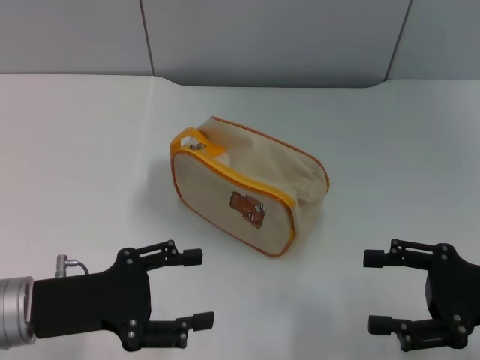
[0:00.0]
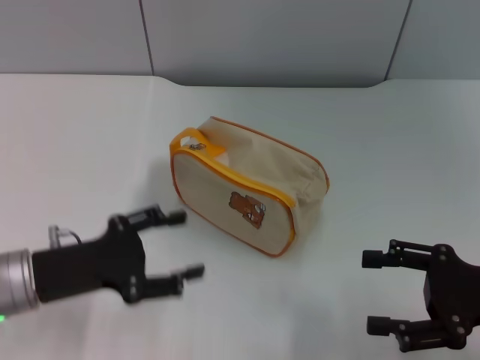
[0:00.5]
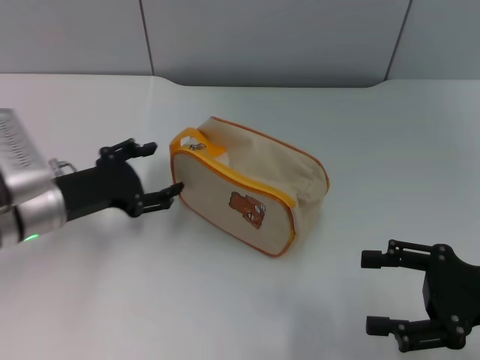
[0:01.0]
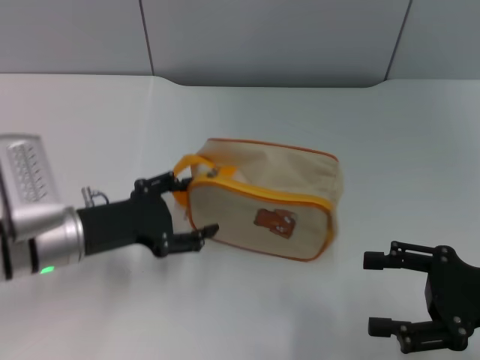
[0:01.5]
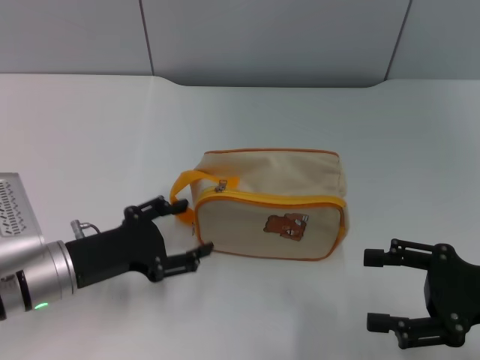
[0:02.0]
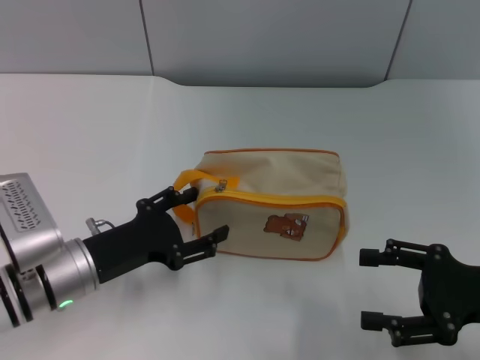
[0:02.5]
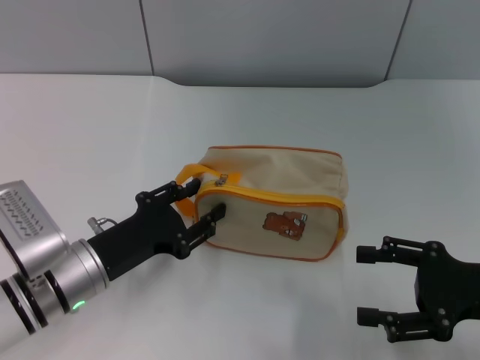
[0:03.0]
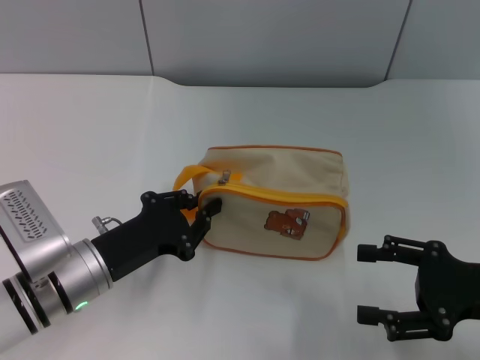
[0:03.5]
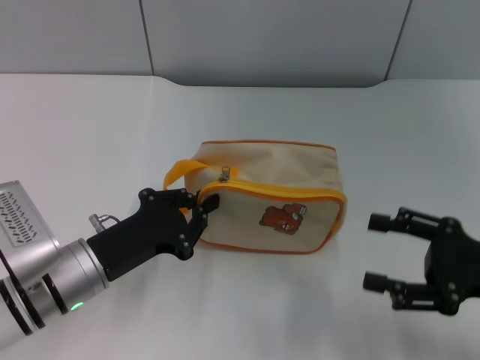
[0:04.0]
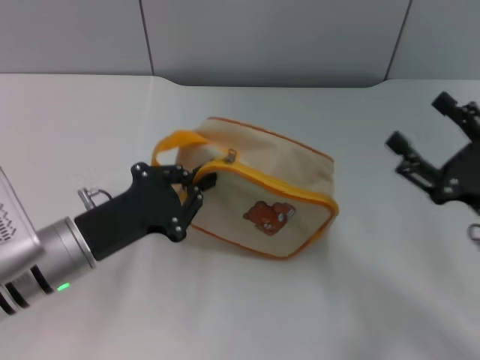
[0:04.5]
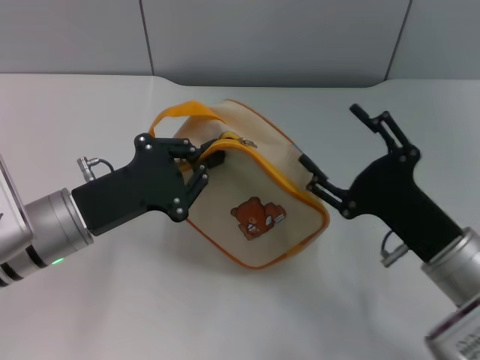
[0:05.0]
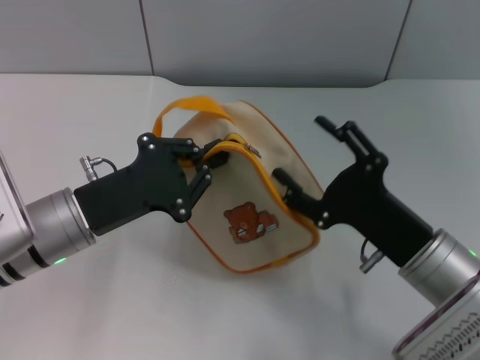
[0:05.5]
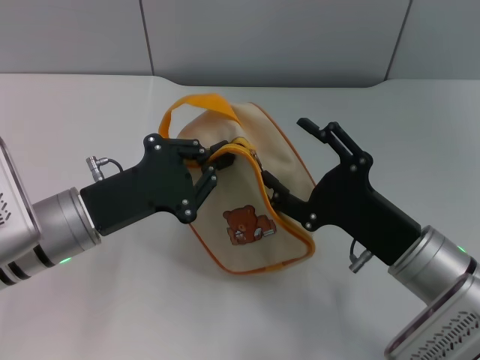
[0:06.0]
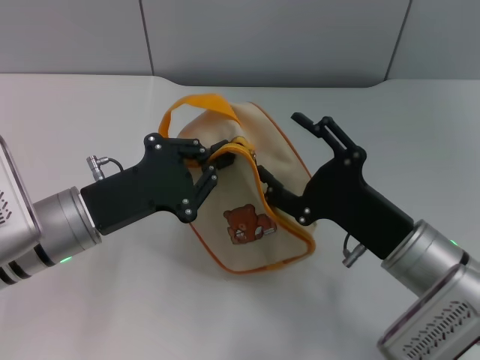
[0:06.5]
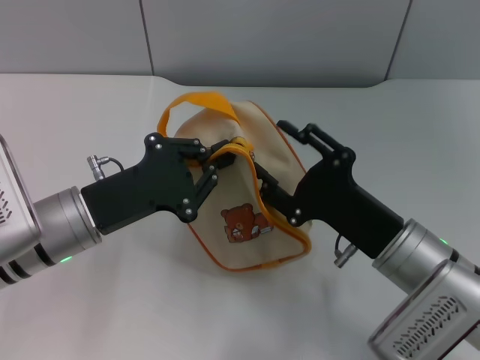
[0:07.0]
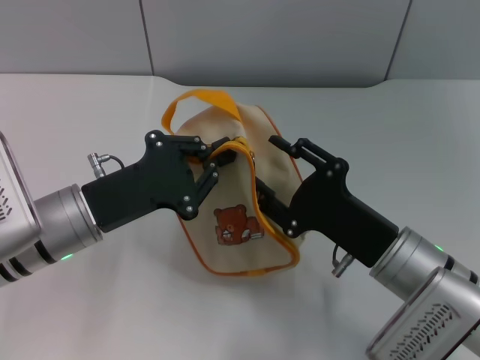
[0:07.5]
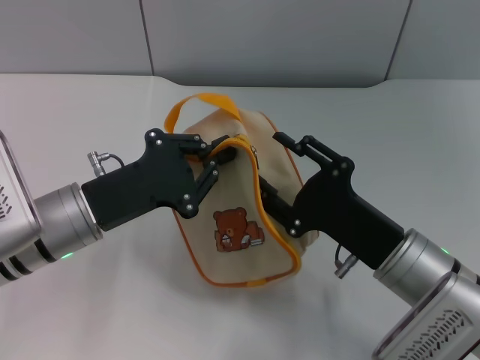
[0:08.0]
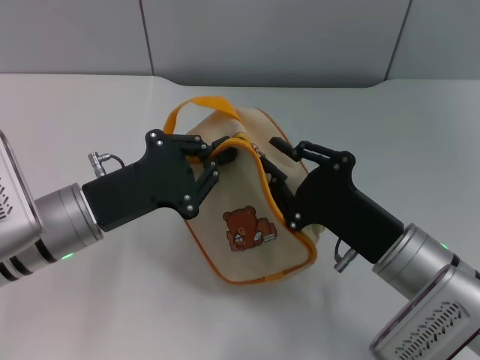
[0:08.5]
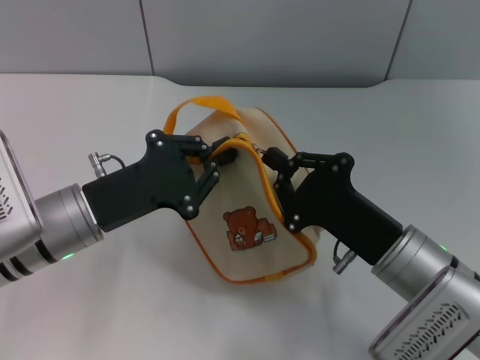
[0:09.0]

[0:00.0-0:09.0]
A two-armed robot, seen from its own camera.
Step, 0:00.0 to 0:04.5: Pick up the bag with left gripper.
0:02.0 to 0:04.5: The left gripper closes its fingers.
0:04.5 to 0:07.0: The right gripper travels to the left by about 10 cm.
0:07.0 to 0:09.0: The right gripper closes.

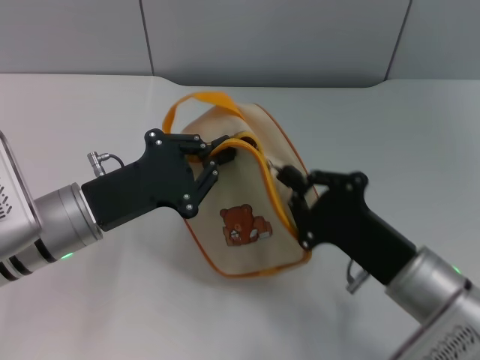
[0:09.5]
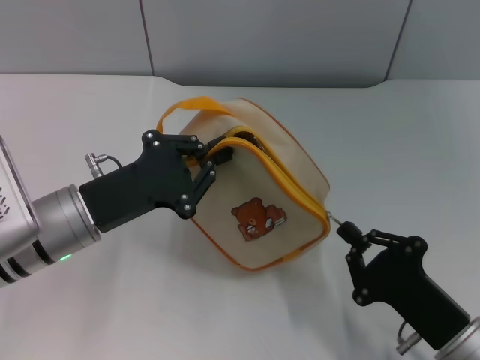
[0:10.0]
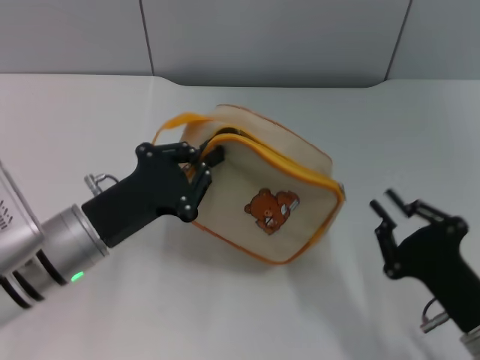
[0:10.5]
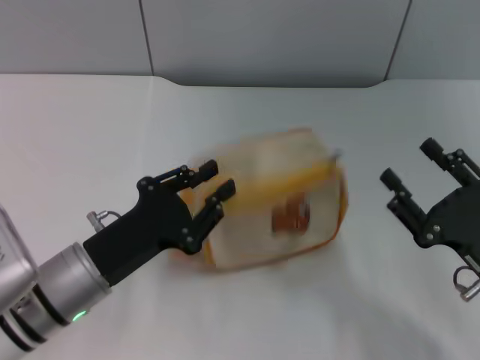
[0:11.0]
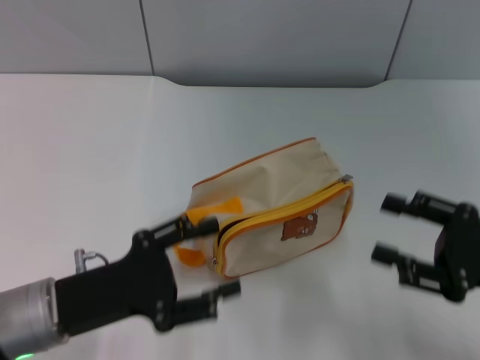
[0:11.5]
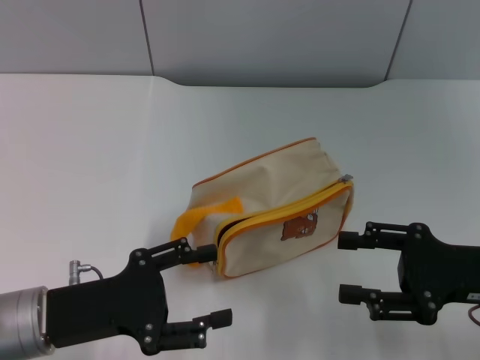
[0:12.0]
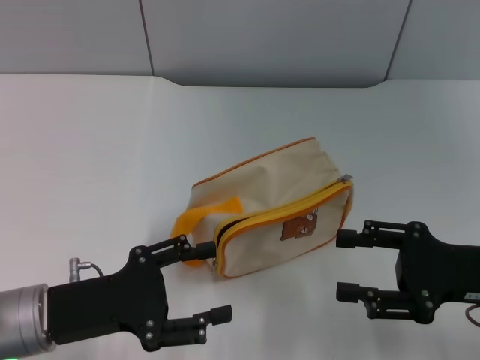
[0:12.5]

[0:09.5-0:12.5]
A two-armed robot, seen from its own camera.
Step, 0:10.5 to 0:11.0: Place the bag on the table with left gripper.
0:09.5 to 0:11.0: The right gripper travels to the right by roughly 10 cm, and opens its fingers; the left gripper ends up some 5 cm from where it was.
0:11.0 to 0:12.5: The right gripper moves about 5 cm; the left gripper moves roughly 5 cm, and opens its fingers.

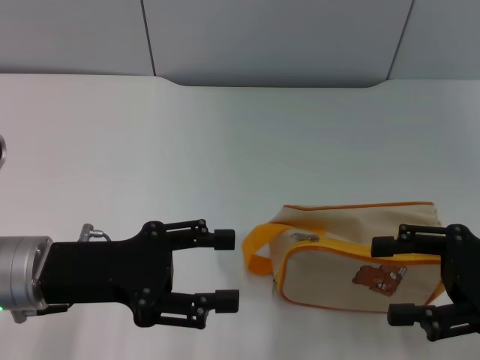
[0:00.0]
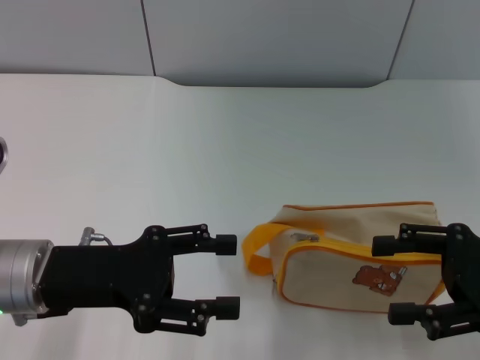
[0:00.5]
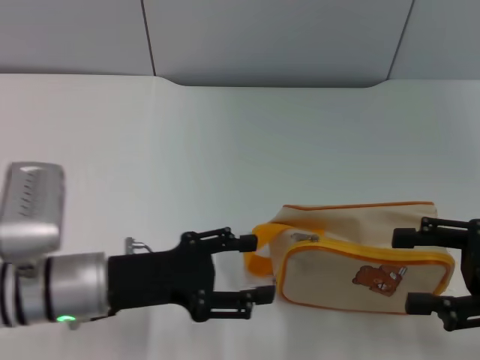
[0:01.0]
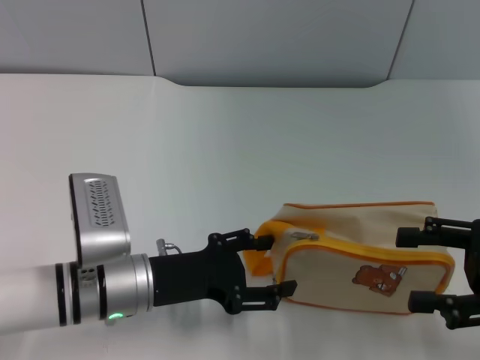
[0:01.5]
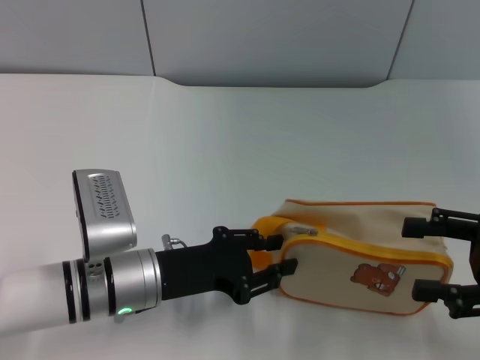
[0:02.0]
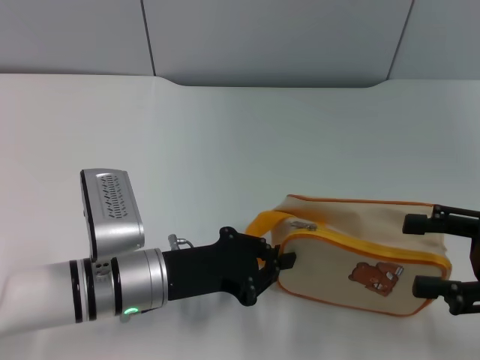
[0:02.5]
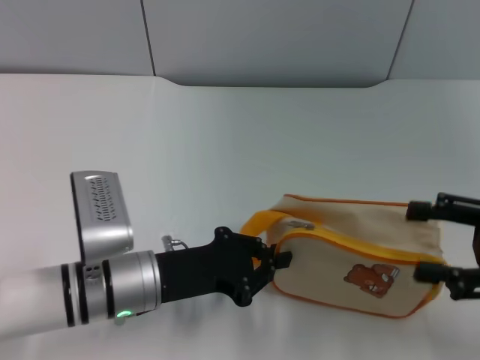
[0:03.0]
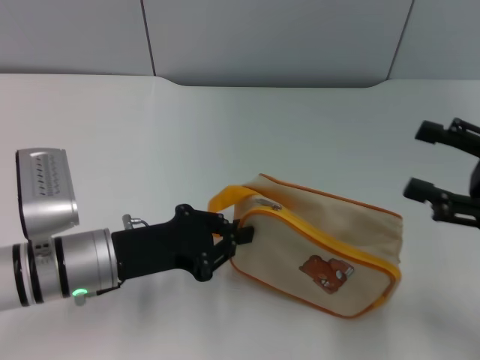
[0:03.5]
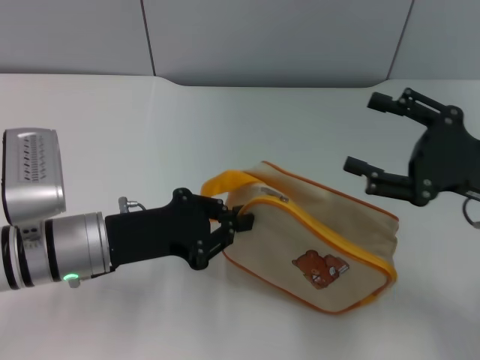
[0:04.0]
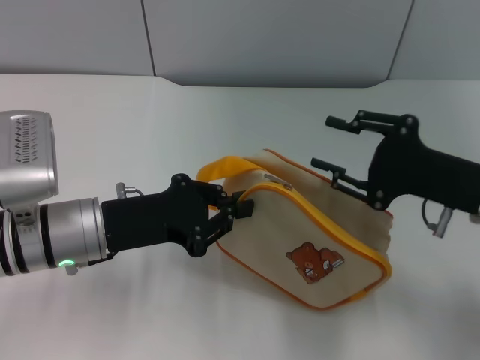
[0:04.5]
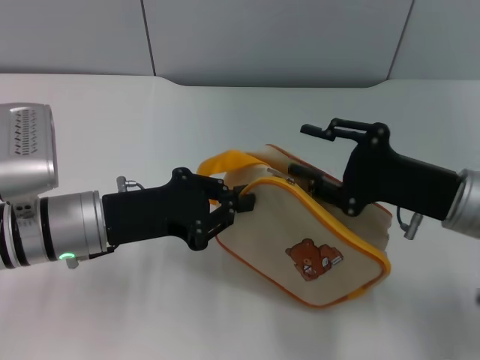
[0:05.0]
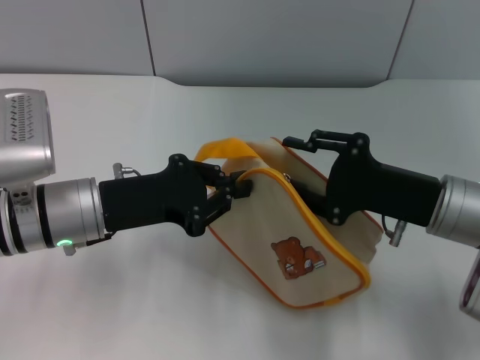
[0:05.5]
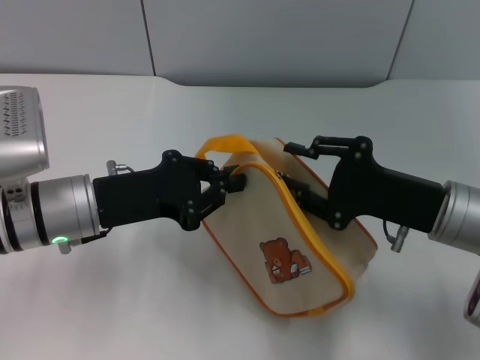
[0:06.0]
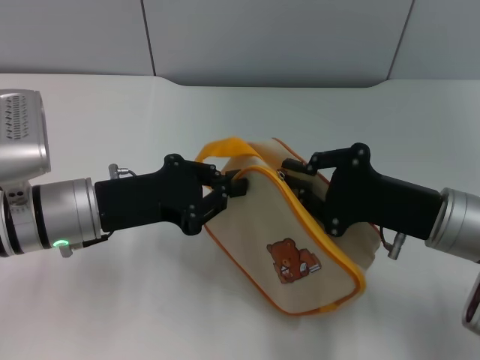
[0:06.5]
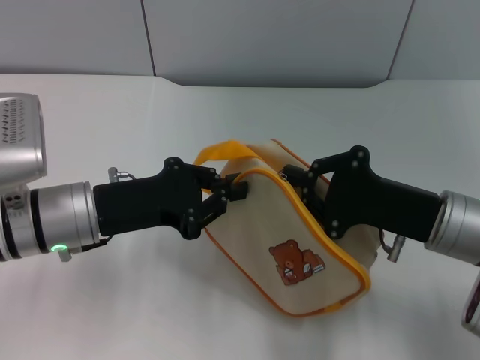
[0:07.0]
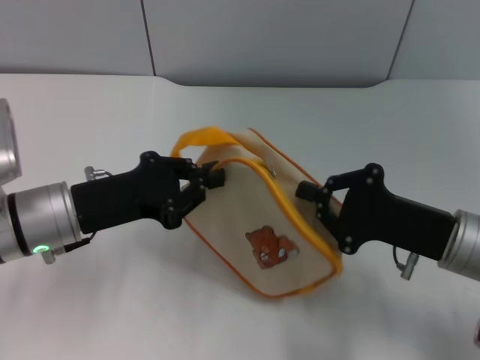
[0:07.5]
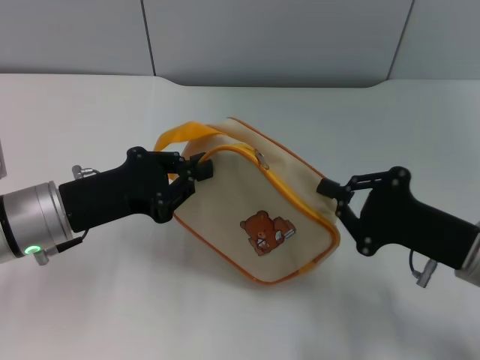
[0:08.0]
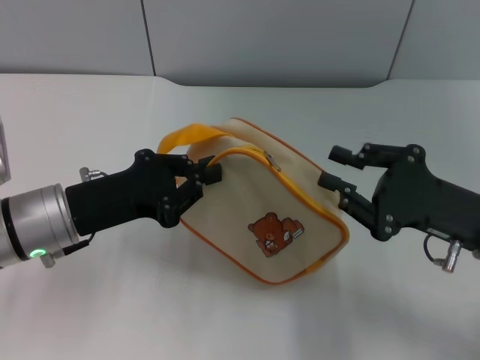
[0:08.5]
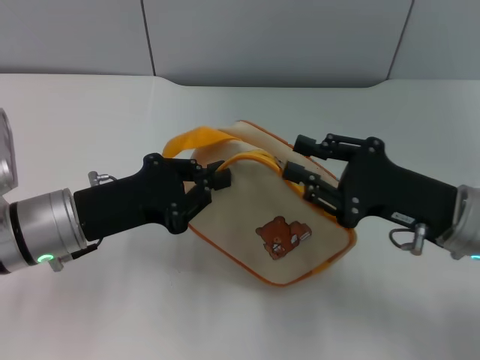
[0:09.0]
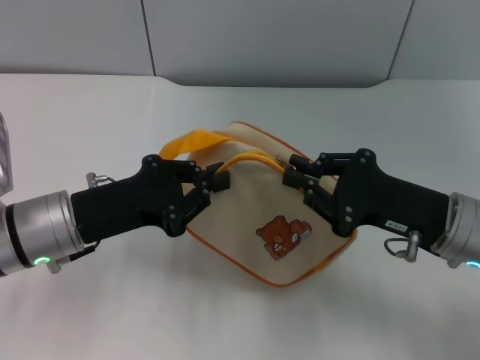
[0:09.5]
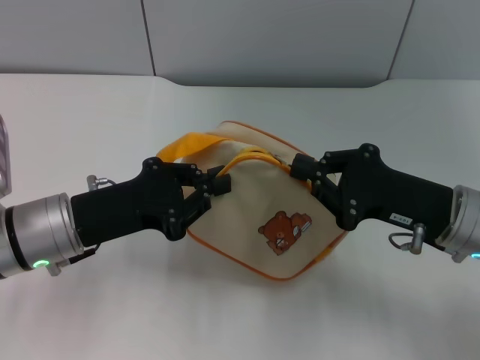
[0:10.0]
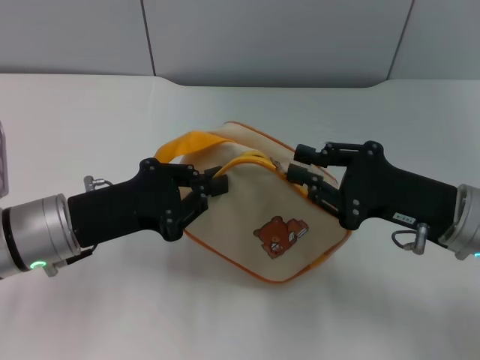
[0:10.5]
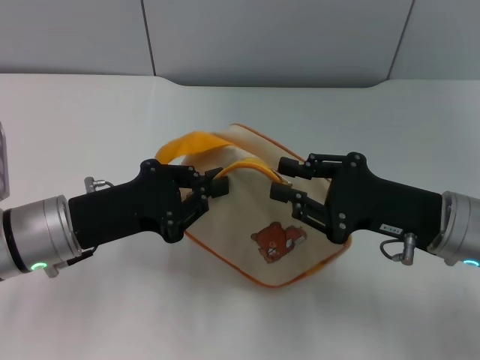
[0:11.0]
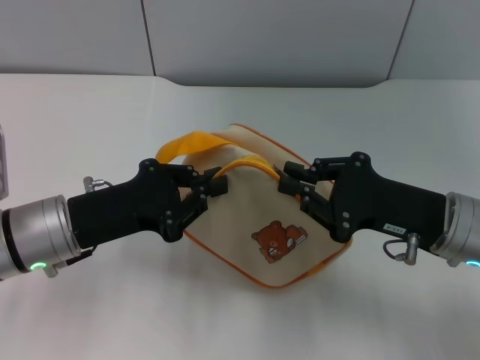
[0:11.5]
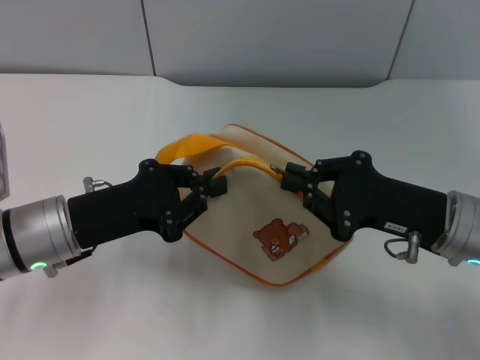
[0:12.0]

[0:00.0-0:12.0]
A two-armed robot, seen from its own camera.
Step, 0:00.0 to 0:04.0: Pick up the bag with left gripper.
0:00.0 to 0:02.0: The left gripper shifts roughly 10 cm to the right and downward.
0:02.0 to 0:04.0: The right gripper moves about 5 cm, while the left gripper shifts by approximately 5 cm, and closes.
0:04.0 to 0:06.0: The right gripper shifts about 5 cm to the left.
0:06.0 to 0:08.0: The right gripper closes up.
0:08.0 to 0:10.0: The right gripper opens and closes again.
0:10.0 to 0:12.0: The two grippers keep their place.

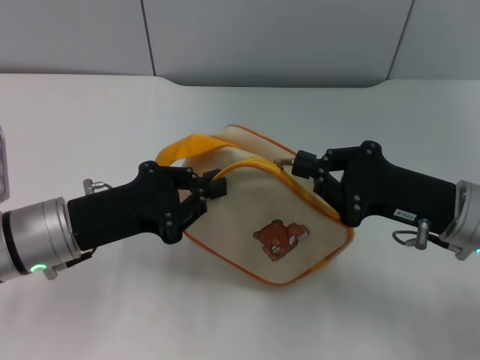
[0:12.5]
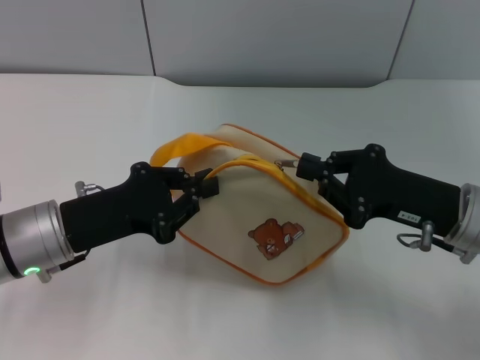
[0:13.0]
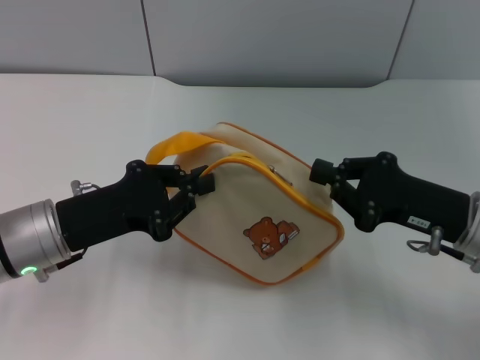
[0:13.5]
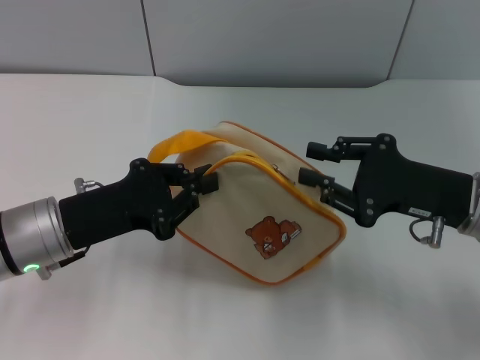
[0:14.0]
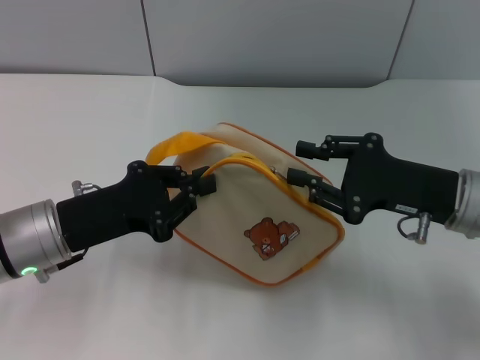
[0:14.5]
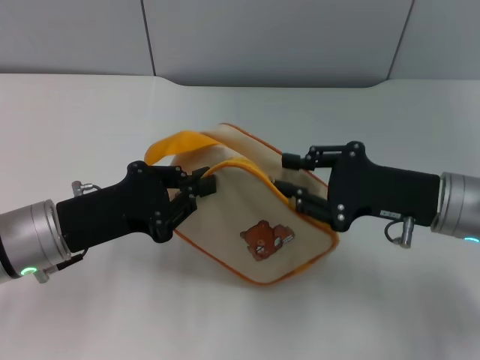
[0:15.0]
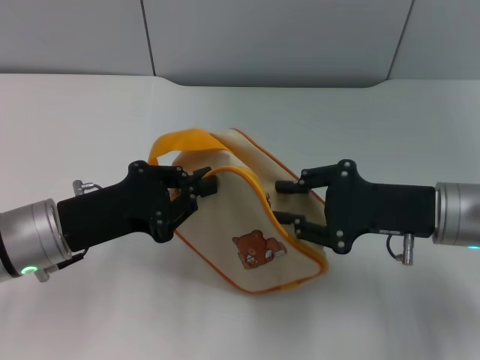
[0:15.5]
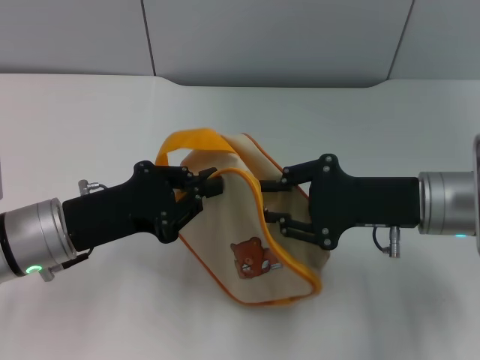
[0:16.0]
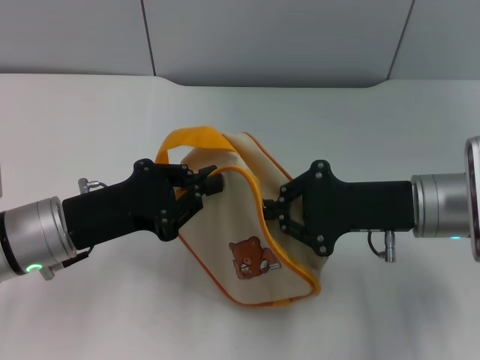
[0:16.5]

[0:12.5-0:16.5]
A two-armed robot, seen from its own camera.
0:12.5 to 0:14.5: The right gripper opens up.
